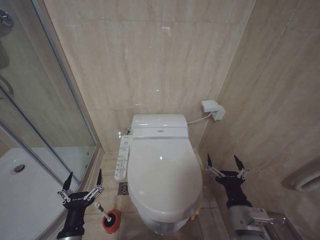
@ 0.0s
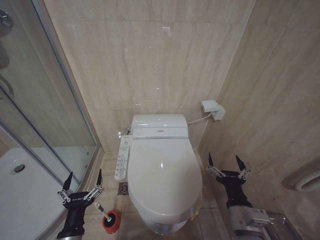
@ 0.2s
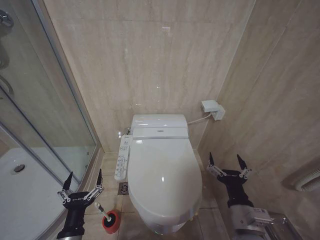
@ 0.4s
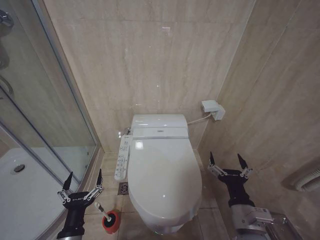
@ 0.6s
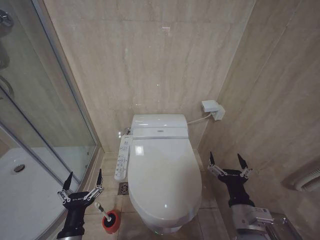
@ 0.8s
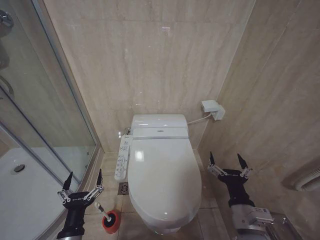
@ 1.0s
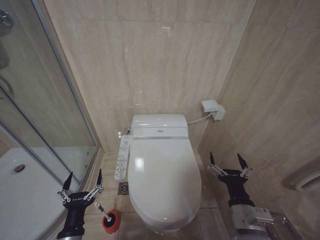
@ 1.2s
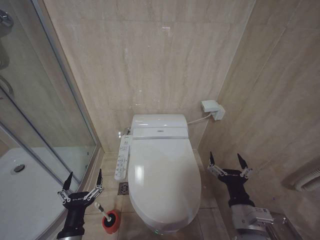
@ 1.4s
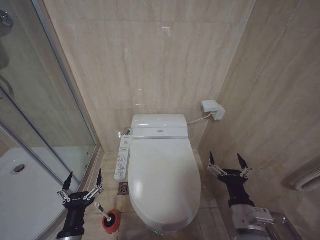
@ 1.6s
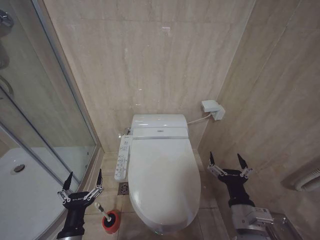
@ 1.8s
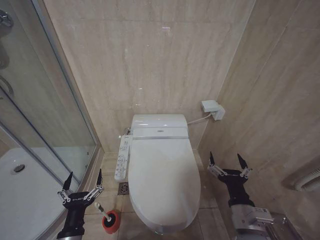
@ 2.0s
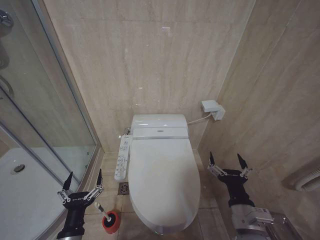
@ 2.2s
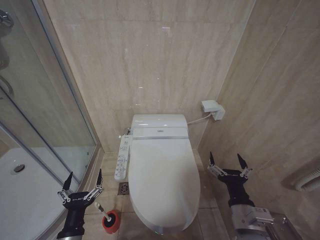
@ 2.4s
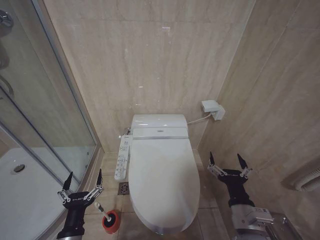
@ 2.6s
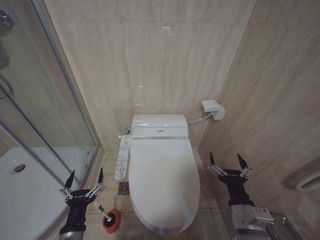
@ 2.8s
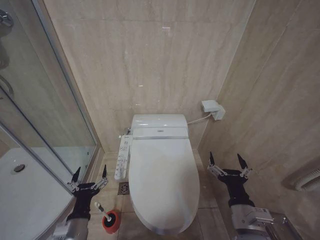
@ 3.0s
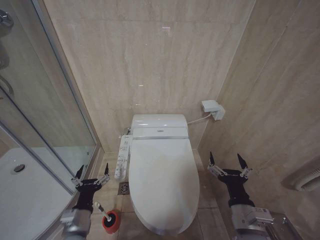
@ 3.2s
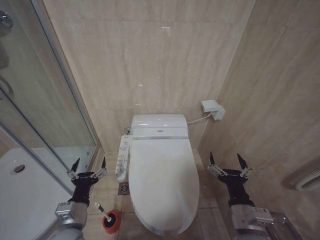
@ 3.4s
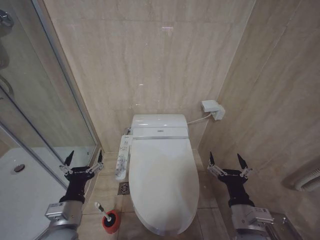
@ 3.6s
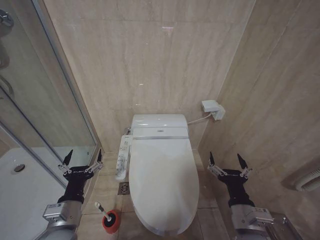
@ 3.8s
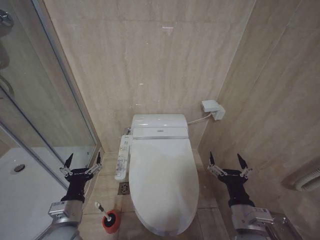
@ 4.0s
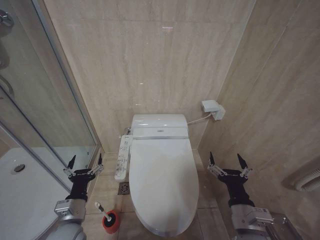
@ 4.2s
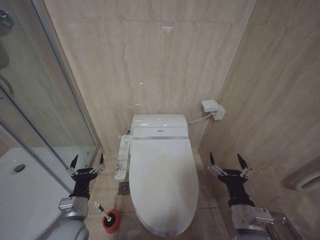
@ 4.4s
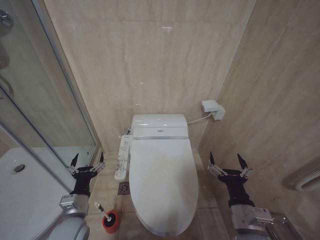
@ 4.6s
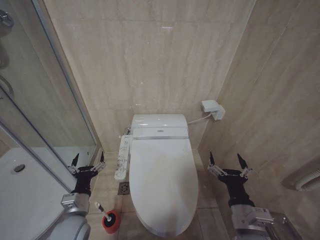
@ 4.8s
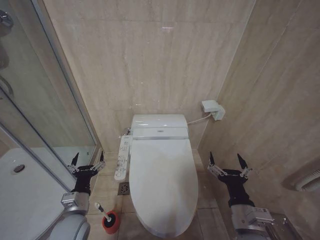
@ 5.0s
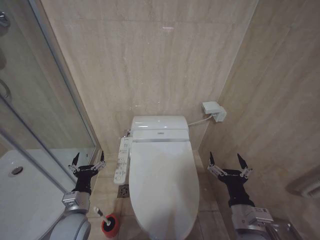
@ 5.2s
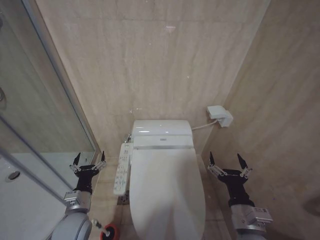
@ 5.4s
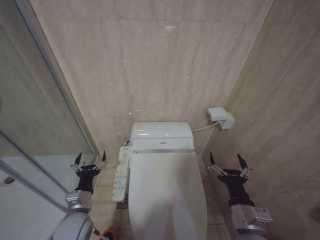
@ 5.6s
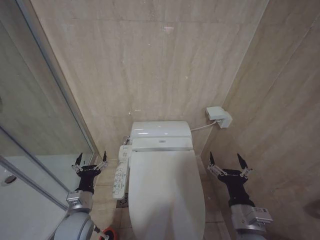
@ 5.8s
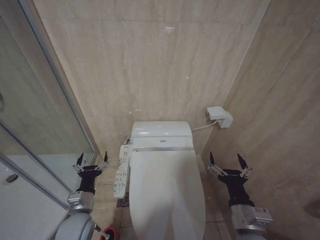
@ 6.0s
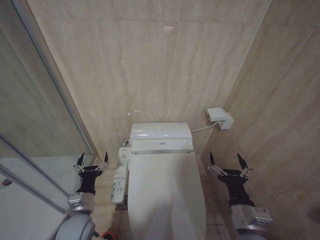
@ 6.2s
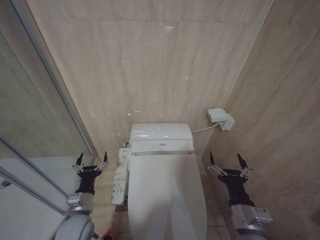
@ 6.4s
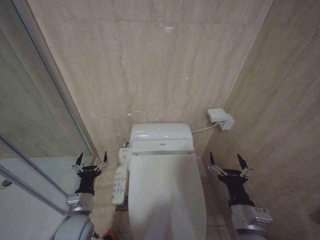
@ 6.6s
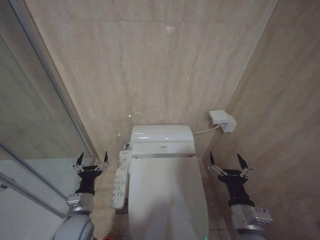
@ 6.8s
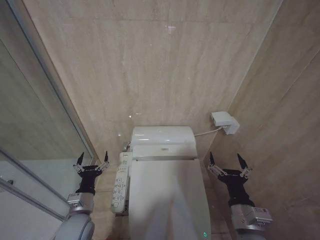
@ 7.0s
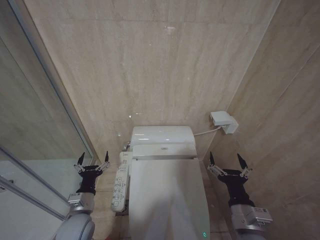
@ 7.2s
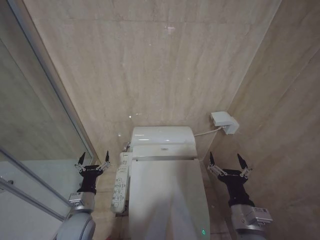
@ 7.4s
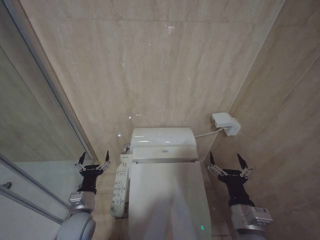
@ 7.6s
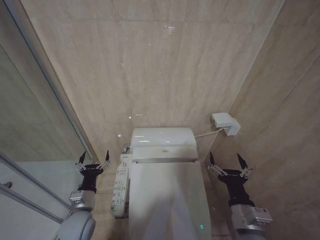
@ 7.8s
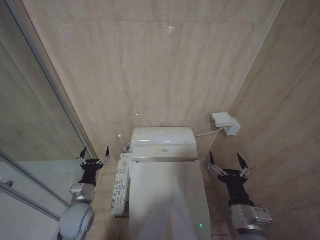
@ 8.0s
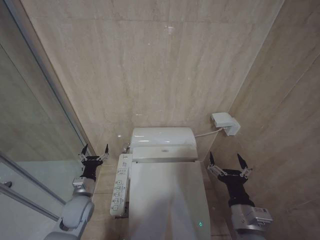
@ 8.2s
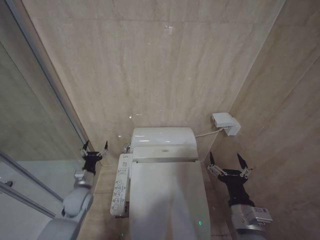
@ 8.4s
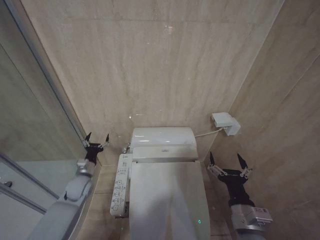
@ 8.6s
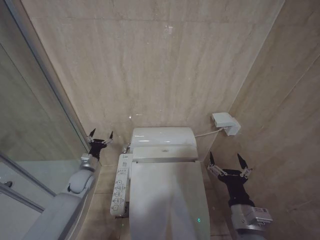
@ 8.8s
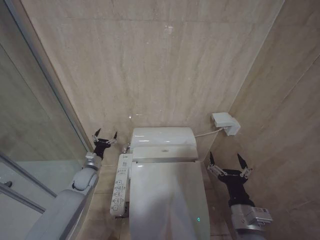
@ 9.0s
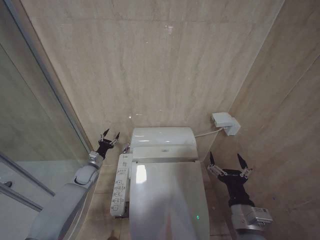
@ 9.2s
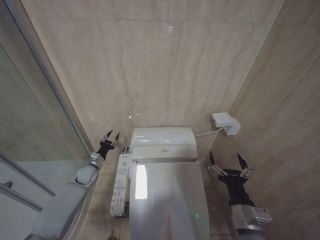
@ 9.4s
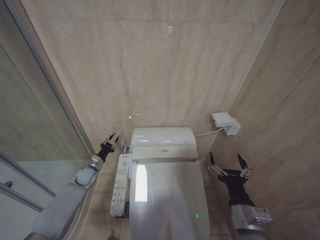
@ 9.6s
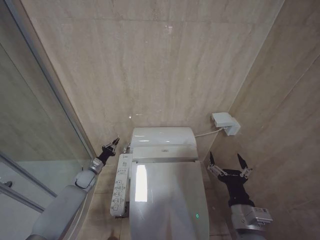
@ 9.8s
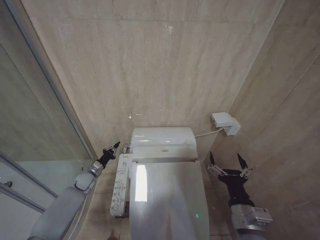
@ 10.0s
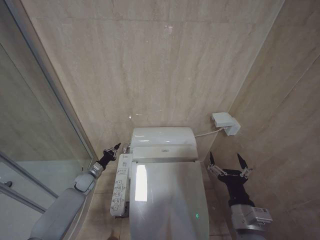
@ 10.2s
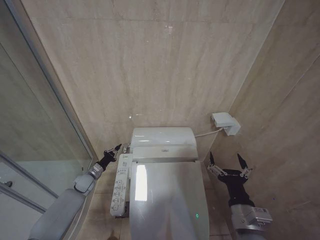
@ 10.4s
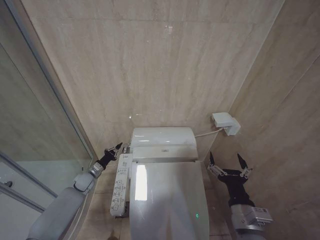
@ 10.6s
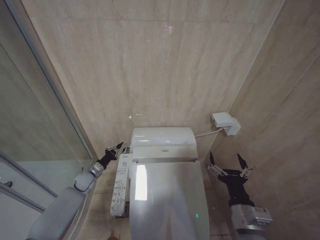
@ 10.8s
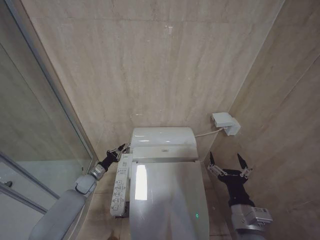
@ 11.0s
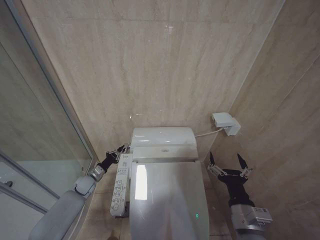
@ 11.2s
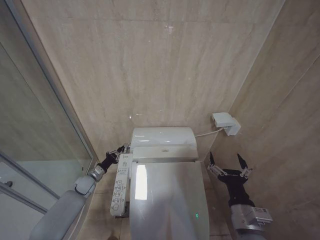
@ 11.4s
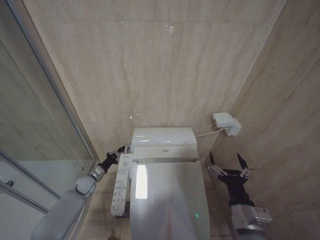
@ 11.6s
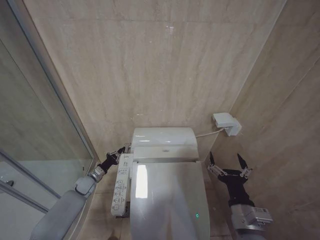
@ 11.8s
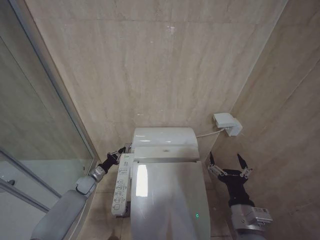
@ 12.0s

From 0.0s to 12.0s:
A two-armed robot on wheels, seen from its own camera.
Task of the whole recording: Open the toilet lid, clean the toilet bowl with a toilet brush, close the toilet lid, and flush.
From 0.0s to 1.6s: Neither gripper changes place.
From 1.6s to 3.0s: The grippers move only a little.
From 3.0s to 4.4s: The left gripper is displaced forward by roughly 5 cm, and travels upward and back again, roughly 10 cm each way.
From 4.4s to 6.0s: The grippers stay close to where they were, moving slightly.
From 6.0s to 7.6s: Both grippers stay put.
From 7.6s to 9.0s: The left gripper heads forward, covering some 20 cm.
From 9.0s to 10.4s: The left gripper moves downward, roughly 10 cm, and closes its fingers.
From 10.4s to 12.0s: The grippers stay close to where they were, moving slightly.

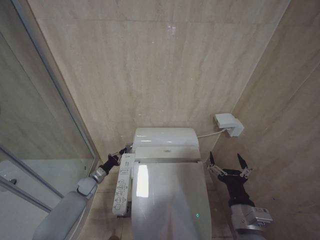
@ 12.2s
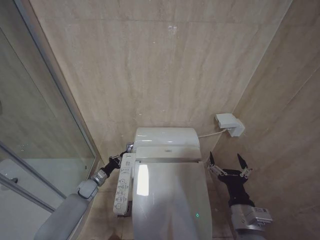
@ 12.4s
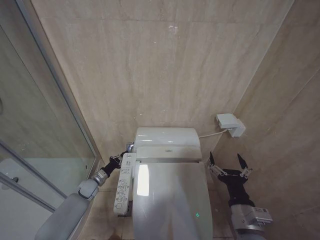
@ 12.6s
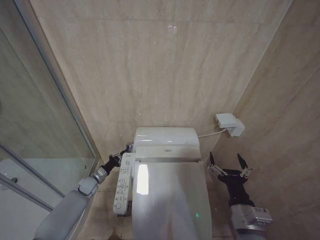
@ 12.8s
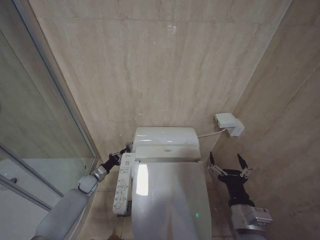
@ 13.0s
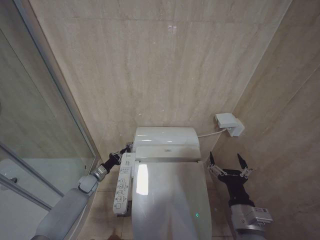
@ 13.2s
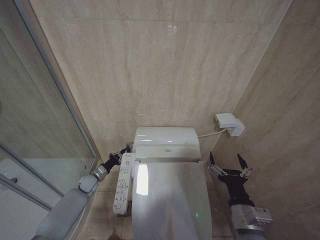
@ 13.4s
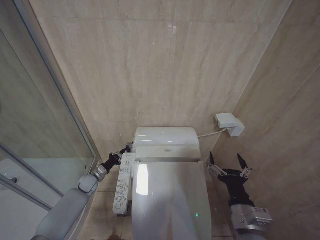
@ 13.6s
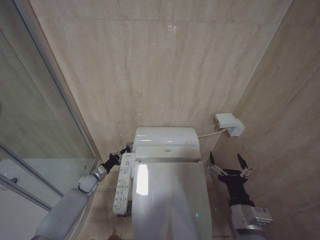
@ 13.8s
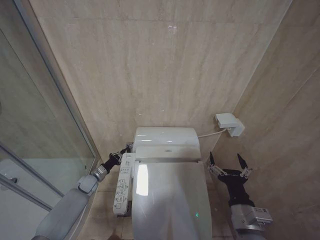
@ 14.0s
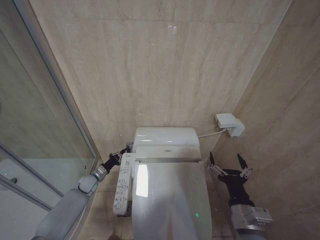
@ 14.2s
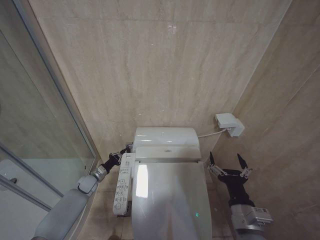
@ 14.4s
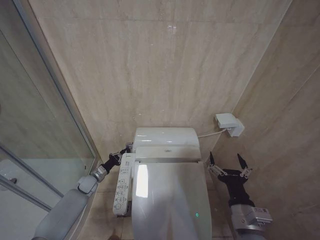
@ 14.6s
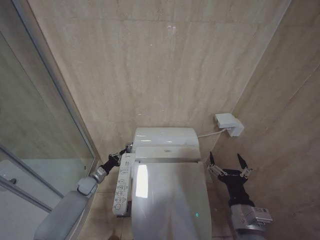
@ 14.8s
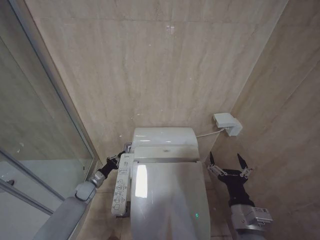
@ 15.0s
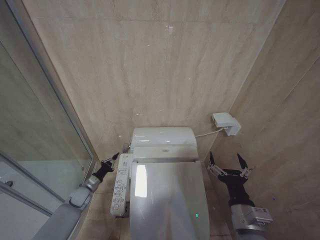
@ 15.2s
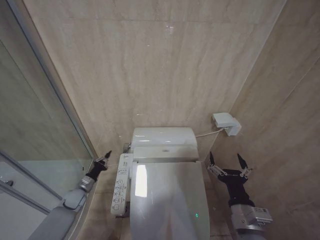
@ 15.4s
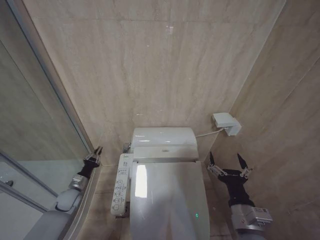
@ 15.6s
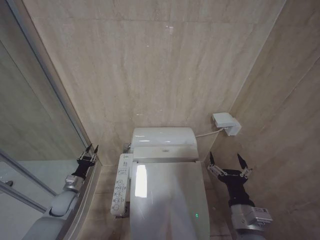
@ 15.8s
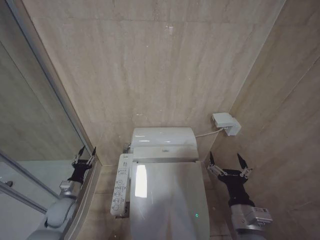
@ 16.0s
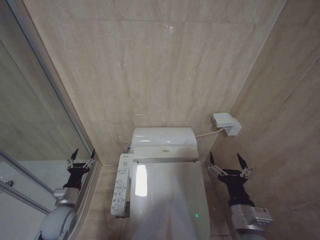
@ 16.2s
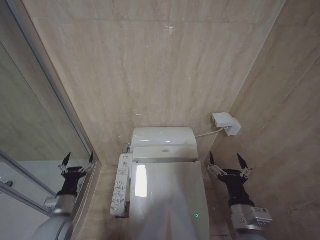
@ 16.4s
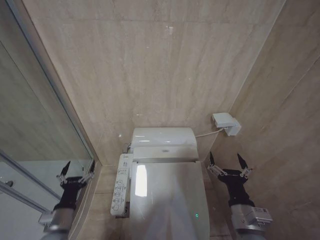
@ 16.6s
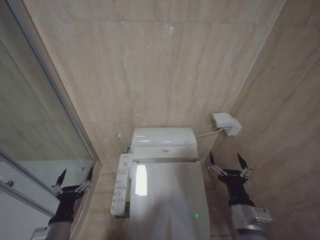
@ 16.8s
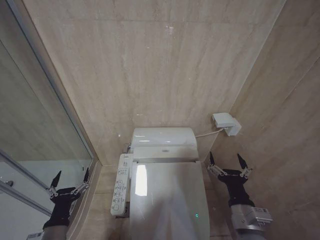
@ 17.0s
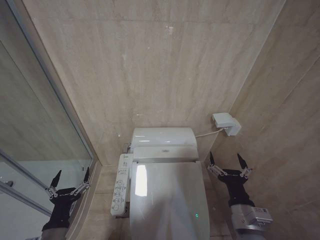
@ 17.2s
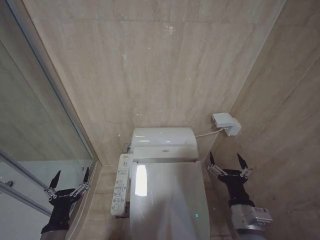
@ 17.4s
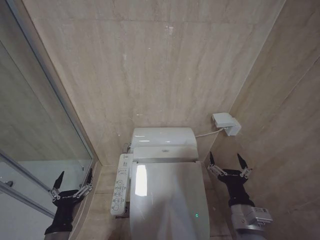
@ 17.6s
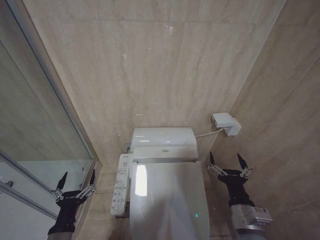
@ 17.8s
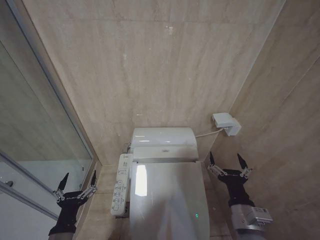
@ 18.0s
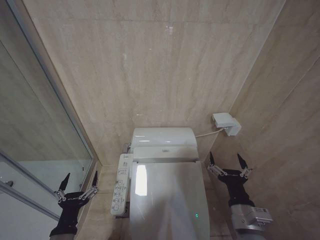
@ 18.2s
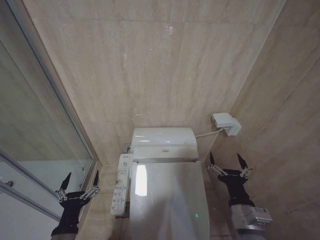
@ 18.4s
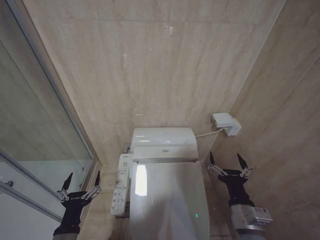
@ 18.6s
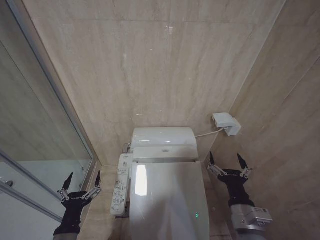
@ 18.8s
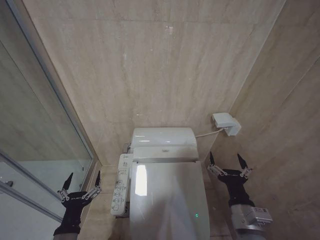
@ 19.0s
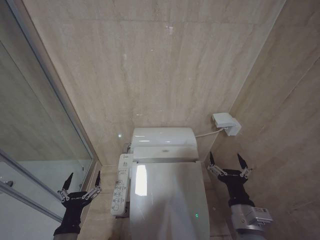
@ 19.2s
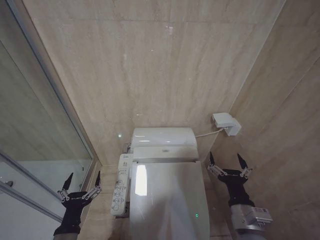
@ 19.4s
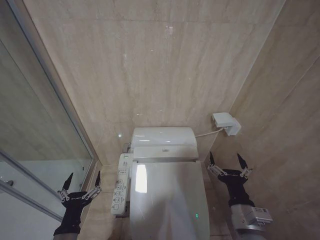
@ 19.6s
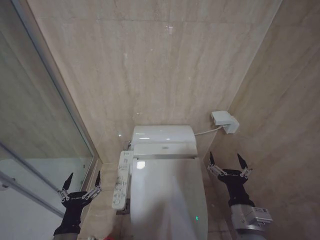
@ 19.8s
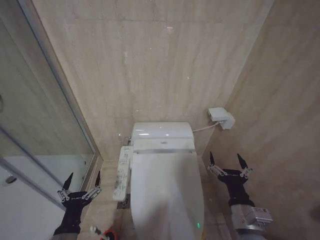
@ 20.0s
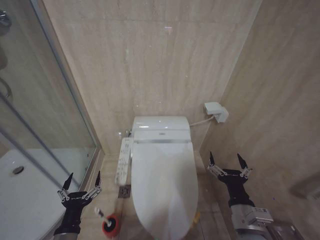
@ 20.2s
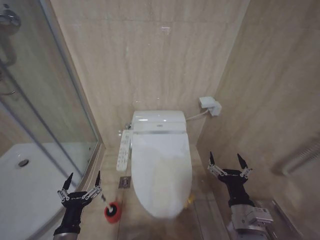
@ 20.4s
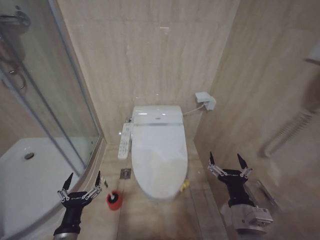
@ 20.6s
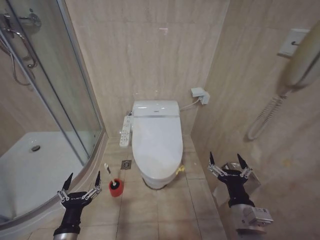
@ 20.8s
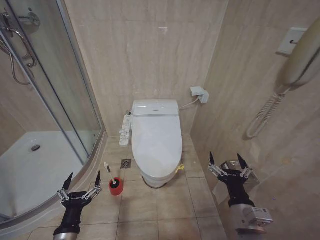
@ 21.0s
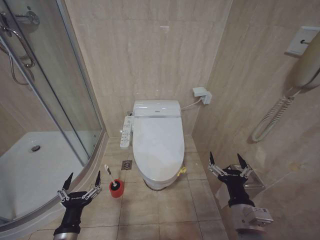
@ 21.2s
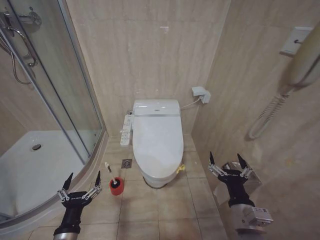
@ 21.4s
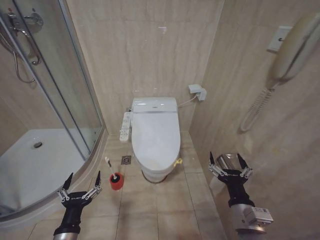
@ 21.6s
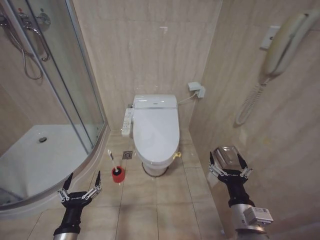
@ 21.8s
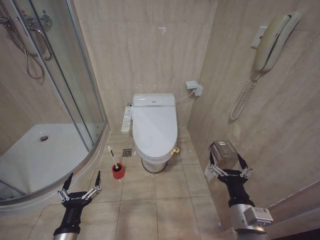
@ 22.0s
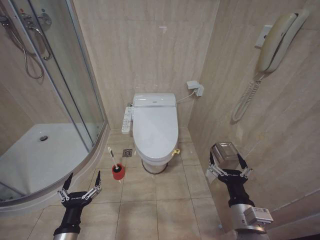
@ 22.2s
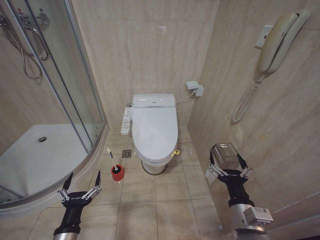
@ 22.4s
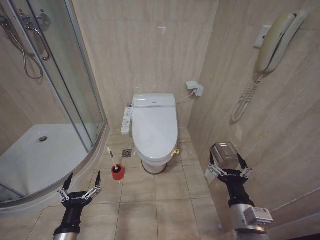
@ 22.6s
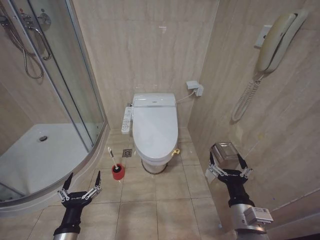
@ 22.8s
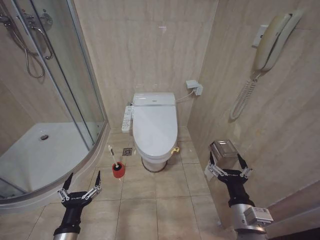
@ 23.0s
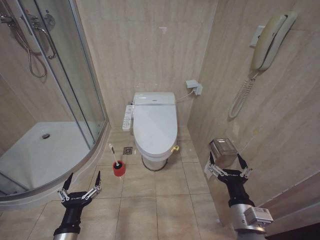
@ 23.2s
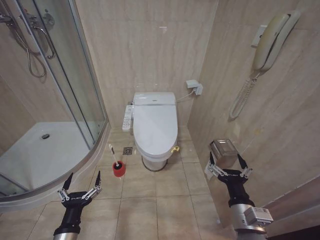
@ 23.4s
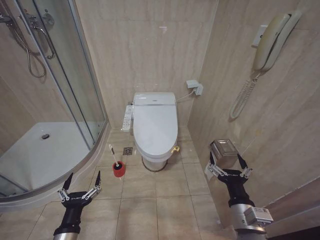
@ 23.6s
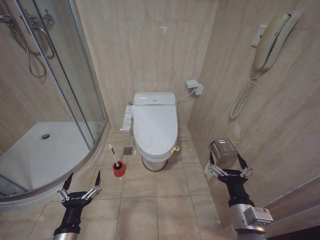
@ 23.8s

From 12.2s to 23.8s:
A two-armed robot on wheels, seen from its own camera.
Task of the whole recording: Open the toilet lid, clean the toilet bowl with a toilet brush, close the toilet lid, and flush.
From 13.6s to 15.0s: The grippers move only a little.
From 15.0s to 16.6s: The left gripper goes about 25 cm backward and upward, and opens up.
From 16.6s to 18.0s: The left gripper shifts some 10 cm backward.
From 18.0s to 19.4s: Neither gripper changes place.
From 21.0s to 23.8s: Both grippers stay put.
